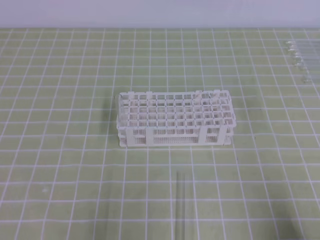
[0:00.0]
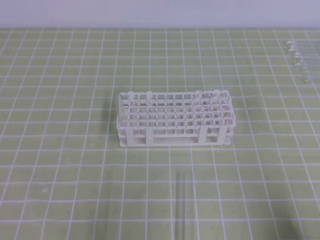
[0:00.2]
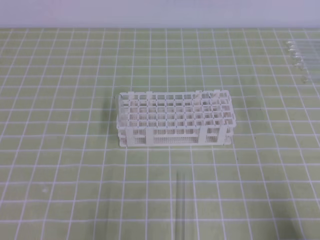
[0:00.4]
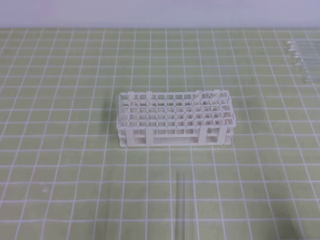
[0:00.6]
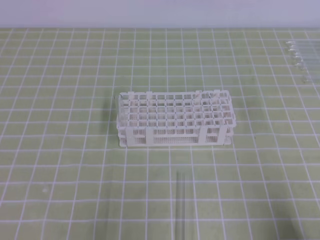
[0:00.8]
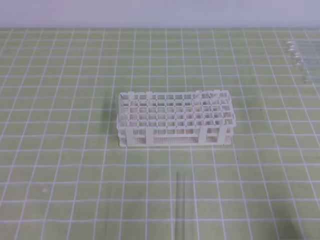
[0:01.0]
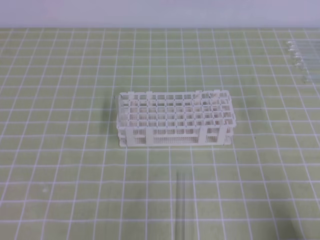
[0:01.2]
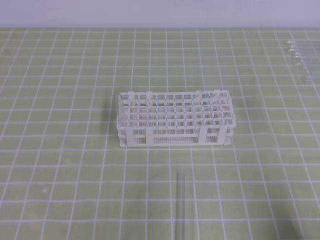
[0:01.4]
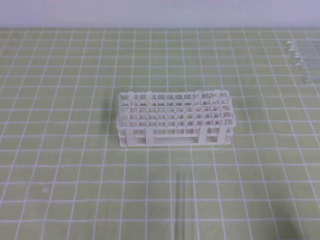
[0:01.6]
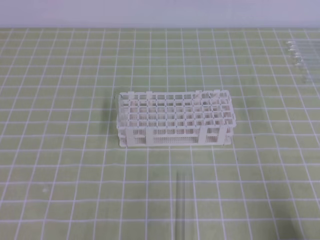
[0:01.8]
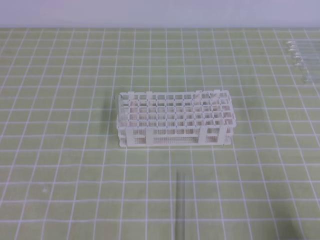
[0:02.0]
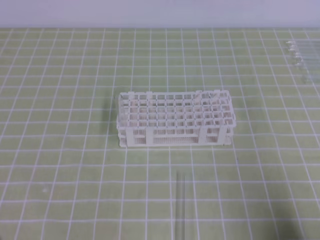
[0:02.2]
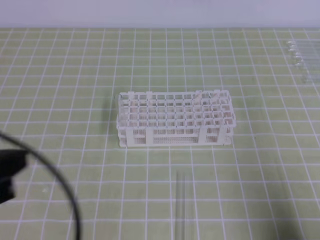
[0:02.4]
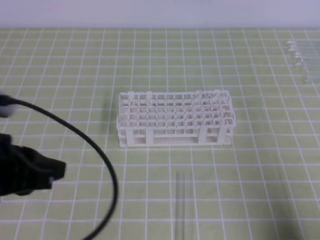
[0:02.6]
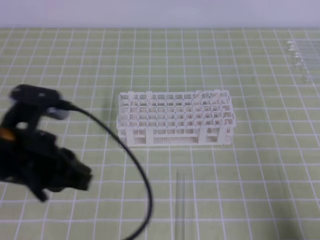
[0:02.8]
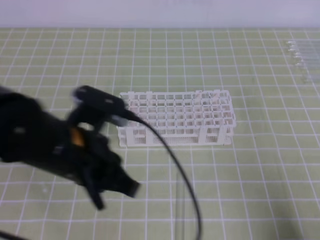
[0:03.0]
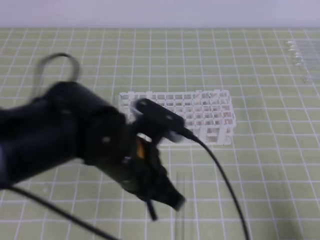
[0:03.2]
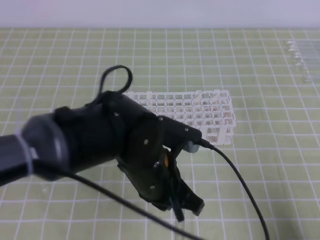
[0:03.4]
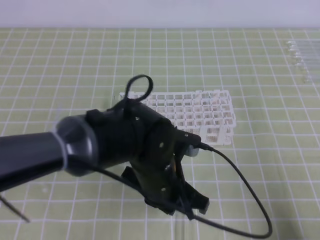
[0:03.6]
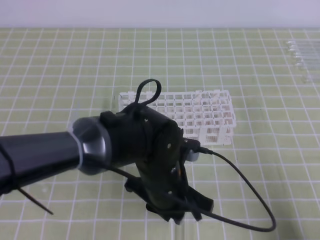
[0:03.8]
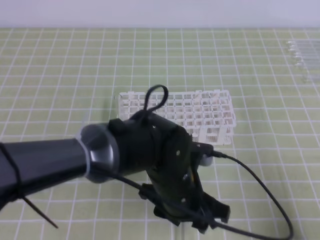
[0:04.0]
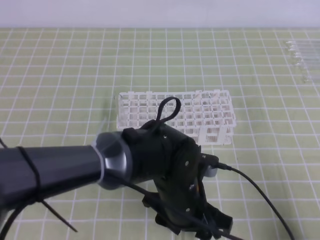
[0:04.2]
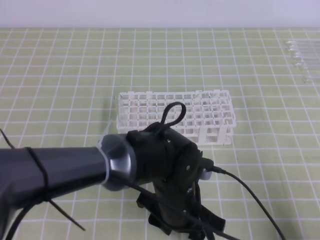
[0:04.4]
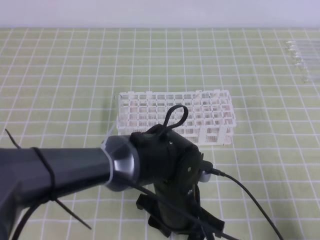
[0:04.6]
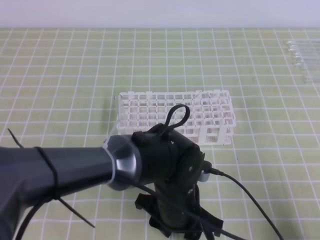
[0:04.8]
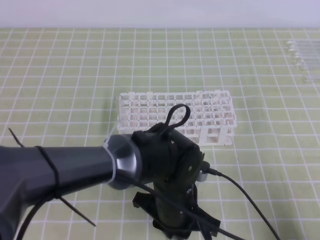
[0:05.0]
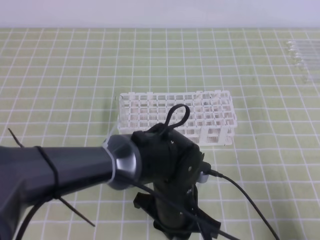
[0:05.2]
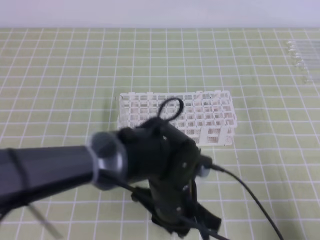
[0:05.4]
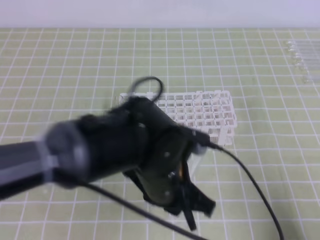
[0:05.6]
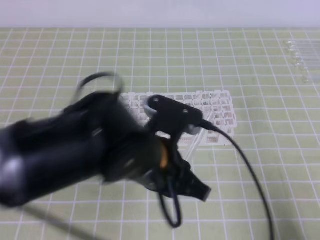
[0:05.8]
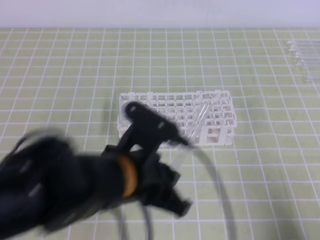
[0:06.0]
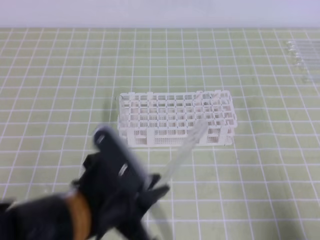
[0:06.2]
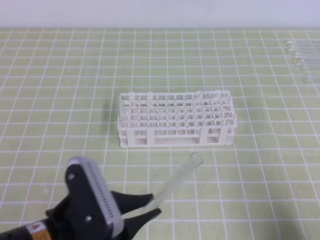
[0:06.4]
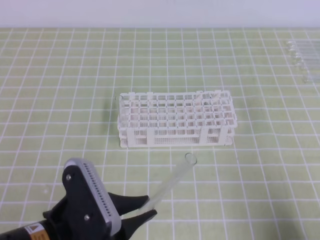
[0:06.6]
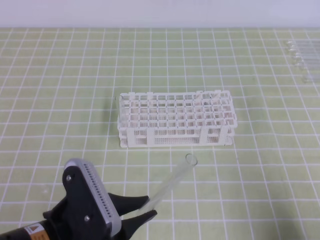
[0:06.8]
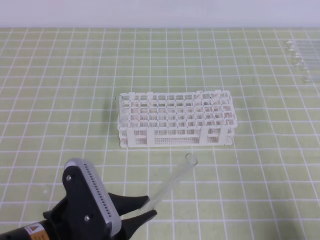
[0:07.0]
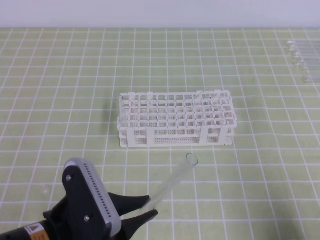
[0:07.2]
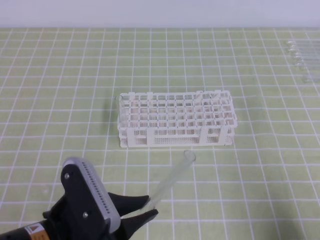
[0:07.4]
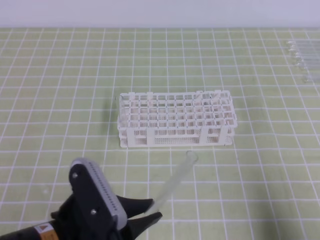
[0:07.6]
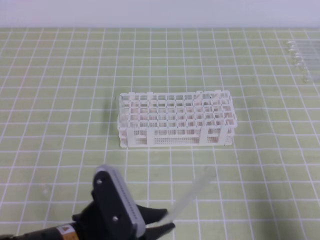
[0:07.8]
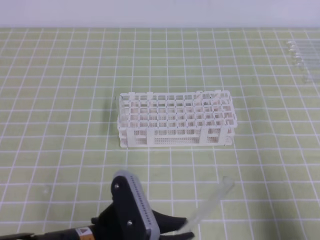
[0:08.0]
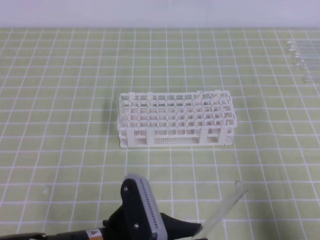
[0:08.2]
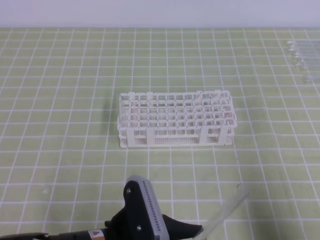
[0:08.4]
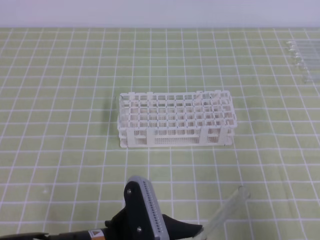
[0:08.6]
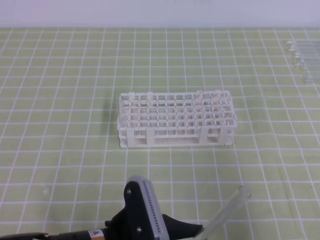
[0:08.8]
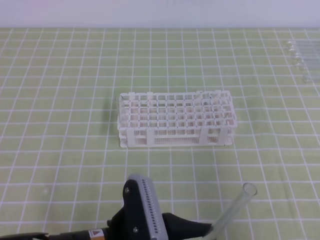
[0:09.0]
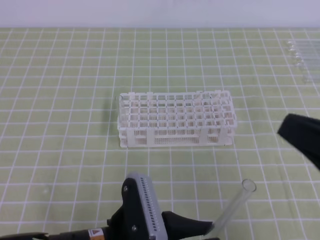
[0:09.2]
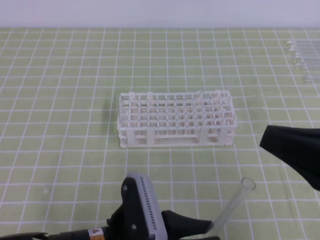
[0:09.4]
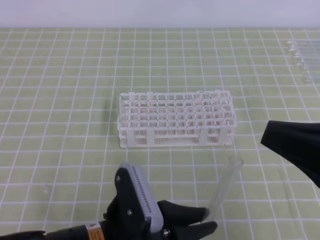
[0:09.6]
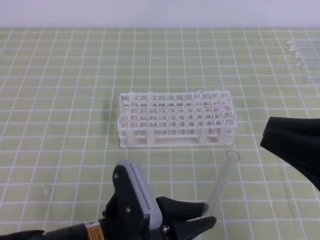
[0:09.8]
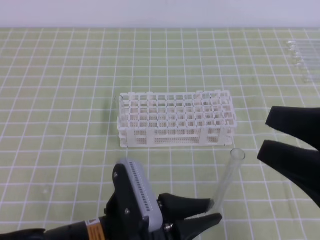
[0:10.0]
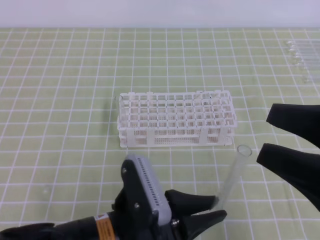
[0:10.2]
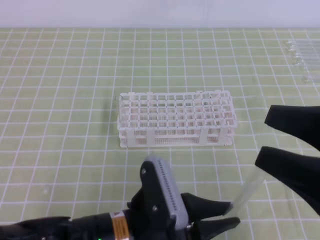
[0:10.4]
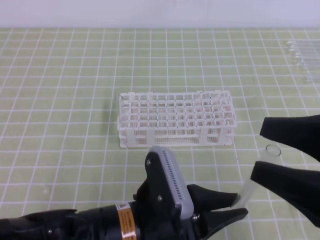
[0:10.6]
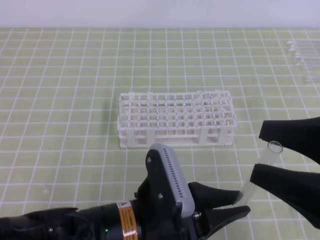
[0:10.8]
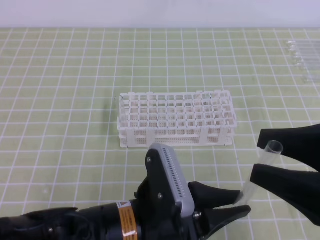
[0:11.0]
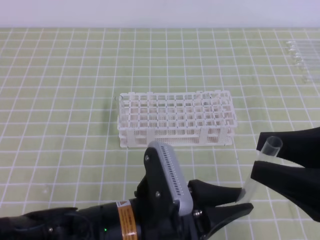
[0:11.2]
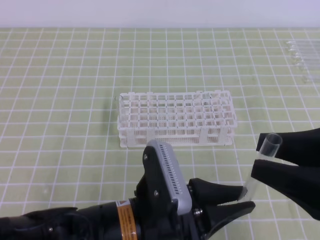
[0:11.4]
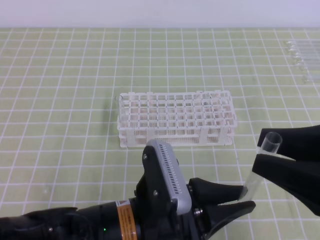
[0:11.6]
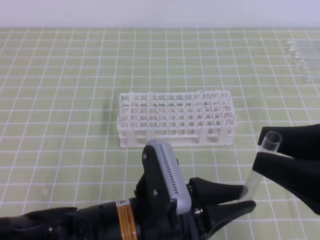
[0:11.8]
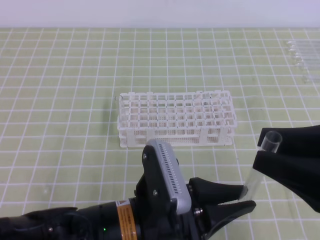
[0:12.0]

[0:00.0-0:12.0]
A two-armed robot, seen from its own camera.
0:01.6 to 0:03.0: The left gripper moves to the right, forward and upward, some 20 cm.
0:03.0 to 0:04.4: The left gripper travels to the right and downward by about 20 cm, and opens up.
0:04.4 to 0:06.0: The left gripper moves upward and to the left, some 10 cm, and closes.
0:06.0 to 0:07.6: The left gripper moves to the left and backward, roughly 10 cm.
0:07.6 to 0:09.0: The left gripper ends up approximately 5 cm from where it was, while the right gripper moves upward, some 10 cm.
0:09.0 to 0:10.4: The right gripper ends up approximately 5 cm from where it was, and opens.
0:10.4 to 0:12.0: The right gripper closes.

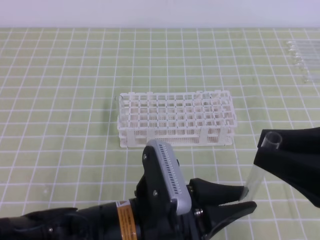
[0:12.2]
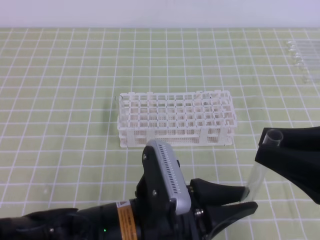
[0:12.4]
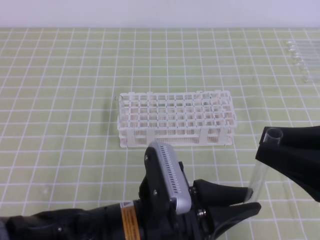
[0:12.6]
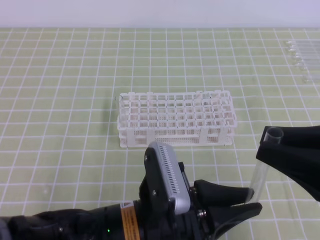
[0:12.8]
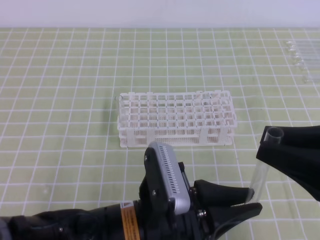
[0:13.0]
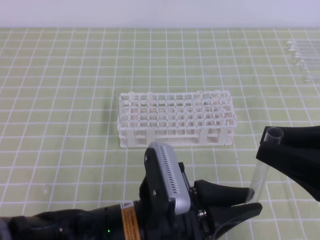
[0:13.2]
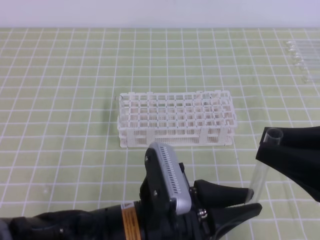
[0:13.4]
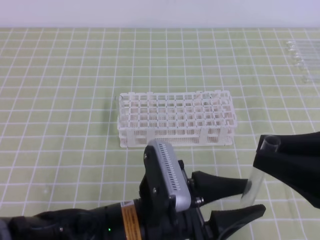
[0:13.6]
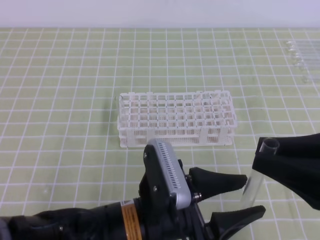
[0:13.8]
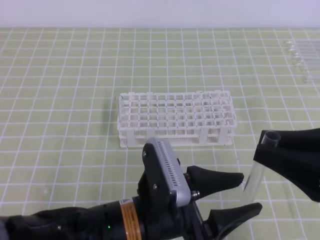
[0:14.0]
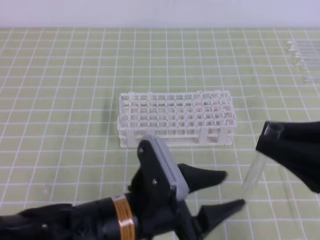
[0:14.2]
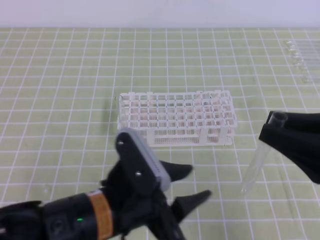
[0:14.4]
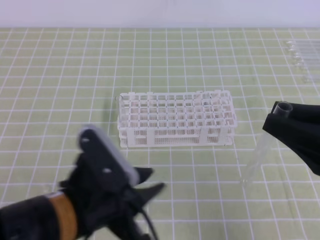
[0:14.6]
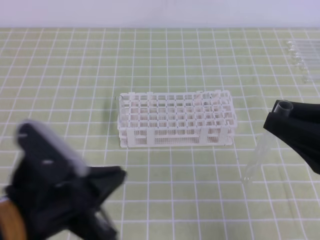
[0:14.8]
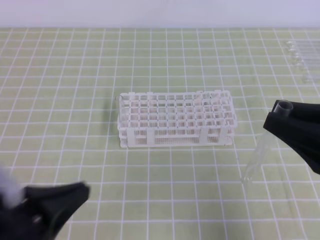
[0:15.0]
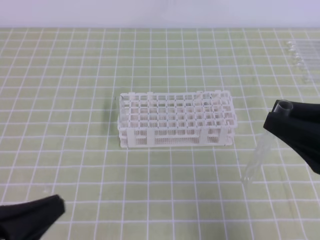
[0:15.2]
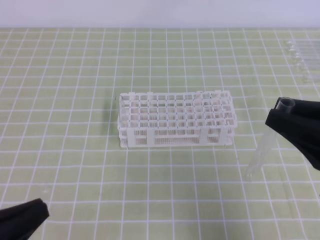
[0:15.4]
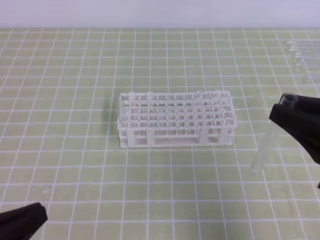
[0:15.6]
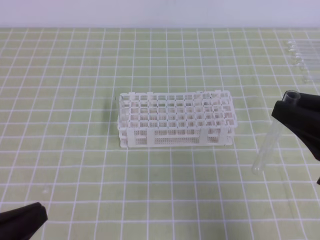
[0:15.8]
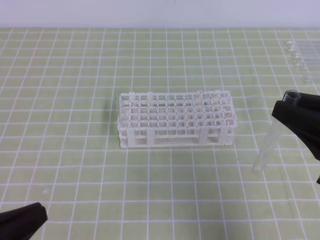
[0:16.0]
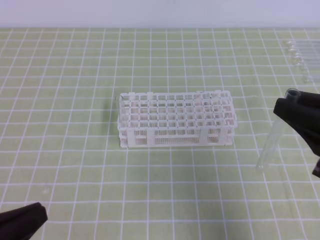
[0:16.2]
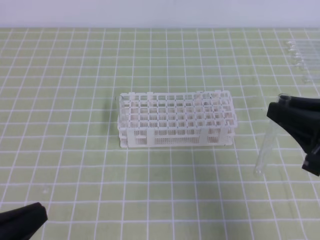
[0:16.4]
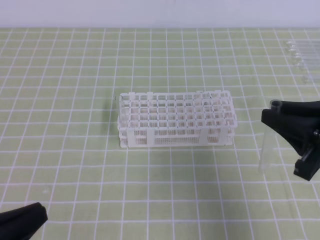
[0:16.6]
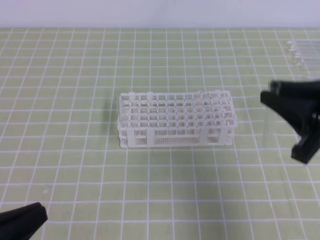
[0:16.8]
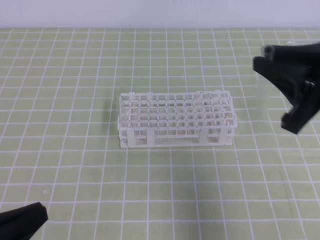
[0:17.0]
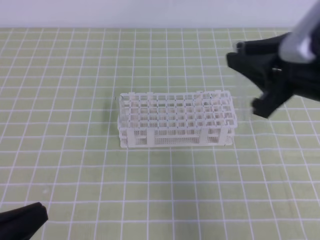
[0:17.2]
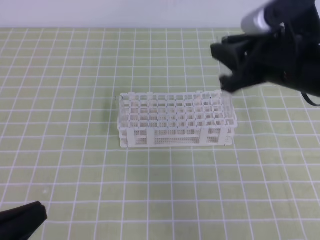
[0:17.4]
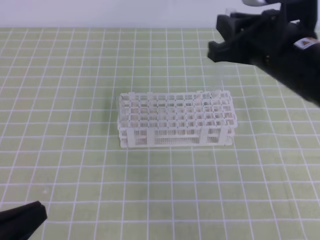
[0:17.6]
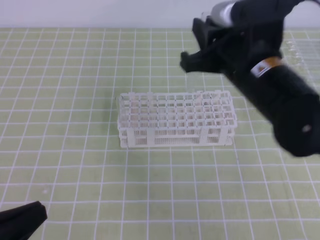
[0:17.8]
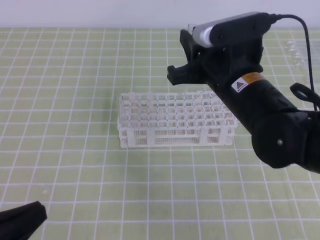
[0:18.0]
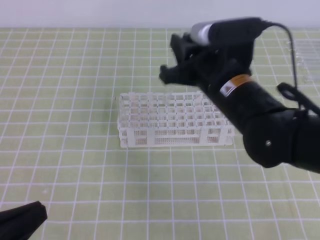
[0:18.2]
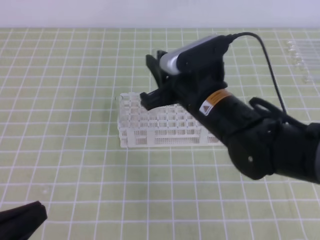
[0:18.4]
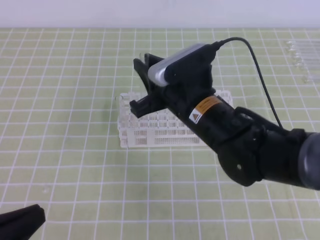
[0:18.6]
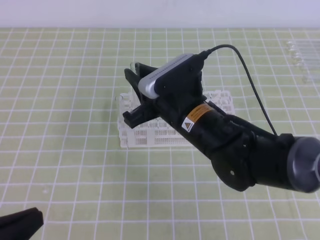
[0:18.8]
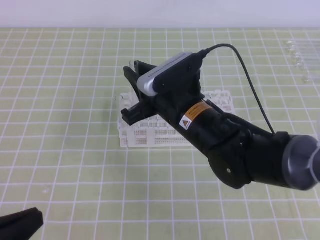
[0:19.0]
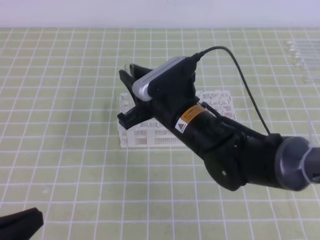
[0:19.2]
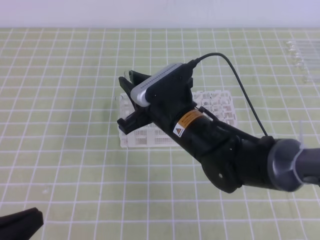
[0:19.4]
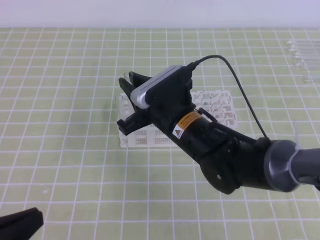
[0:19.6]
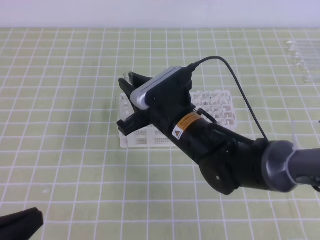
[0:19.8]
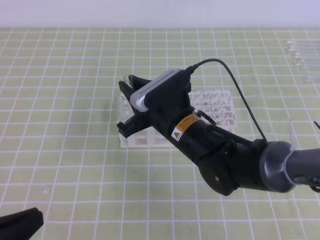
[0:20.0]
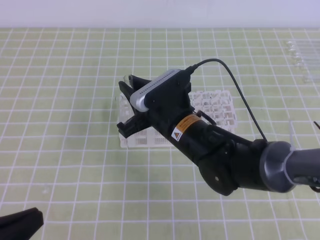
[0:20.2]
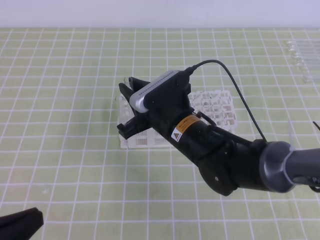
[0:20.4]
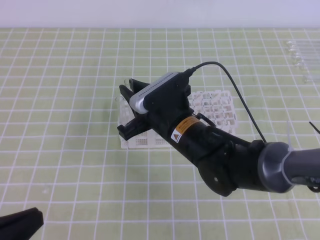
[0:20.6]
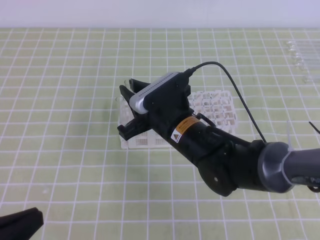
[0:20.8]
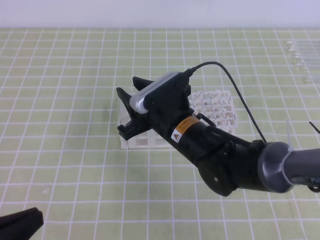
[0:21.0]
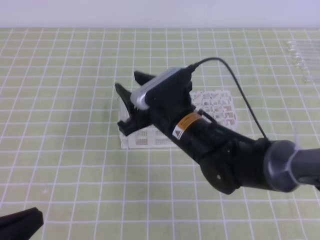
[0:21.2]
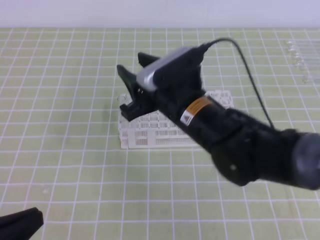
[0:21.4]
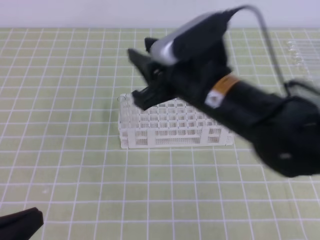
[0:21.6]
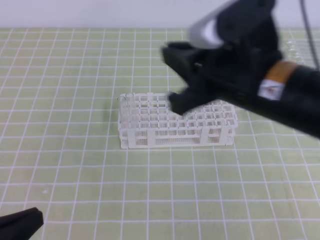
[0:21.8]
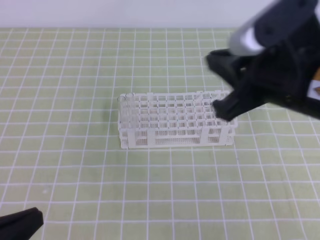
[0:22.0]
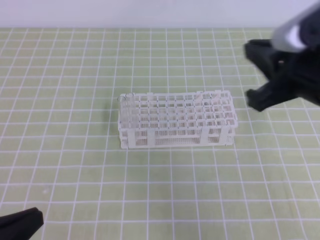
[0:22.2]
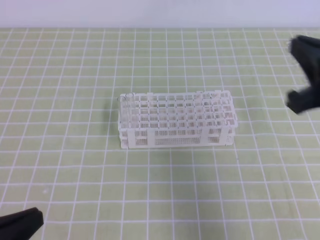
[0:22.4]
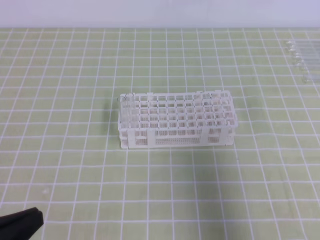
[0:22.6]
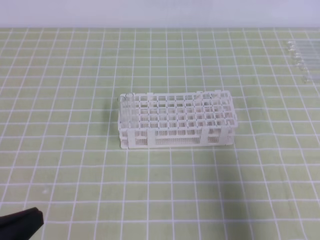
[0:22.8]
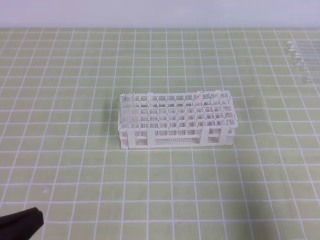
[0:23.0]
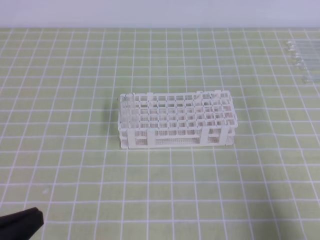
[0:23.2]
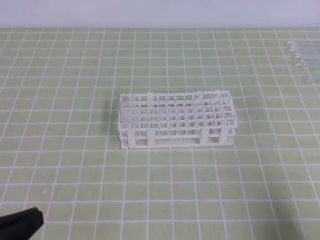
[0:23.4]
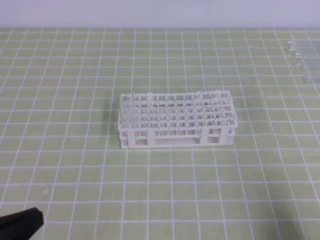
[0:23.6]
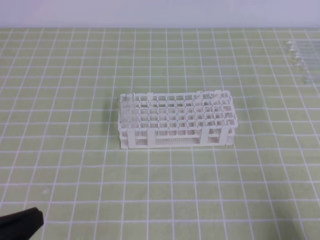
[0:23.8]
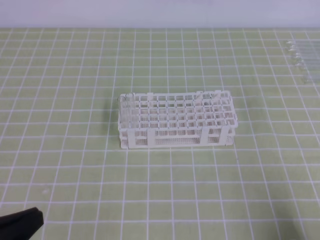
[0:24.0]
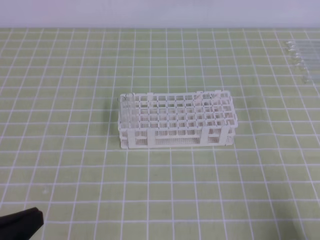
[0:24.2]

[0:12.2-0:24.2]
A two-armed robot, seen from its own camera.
0:12.2 to 0:13.8: The left gripper opens.
0:13.8 to 0:15.2: The left gripper travels to the left by approximately 20 cm, and closes its fingers.
0:15.2 to 0:16.6: The right gripper ends up some 5 cm from where it was.
0:16.6 to 0:18.2: The right gripper goes about 20 cm to the left and forward.
0:18.2 to 0:19.8: The right gripper heads downward and to the left, covering about 10 cm.
0:19.8 to 0:21.2: The right gripper opens its fingers.
0:21.2 to 0:22.6: The right gripper moves to the right and backward, some 25 cm, and closes its fingers.
0:22.6 to 0:24.2: The right gripper travels downward and backward by about 20 cm.
